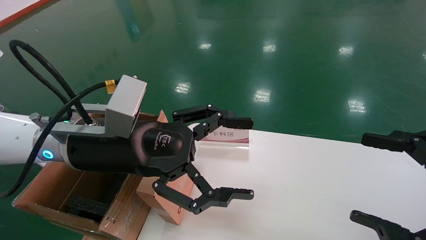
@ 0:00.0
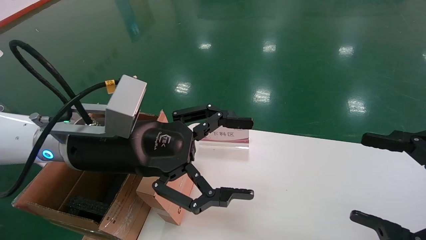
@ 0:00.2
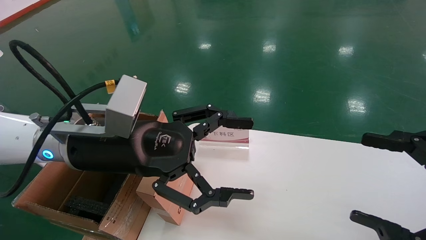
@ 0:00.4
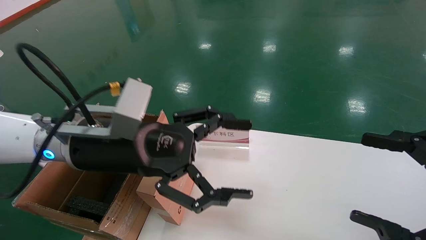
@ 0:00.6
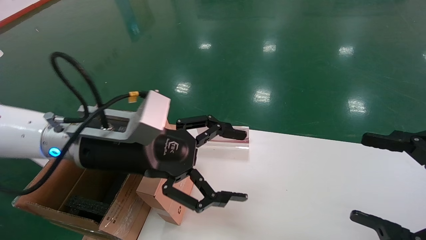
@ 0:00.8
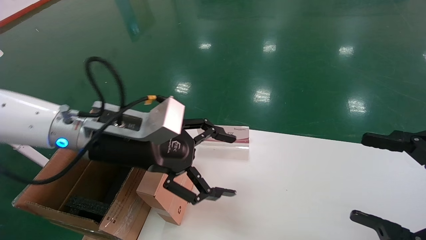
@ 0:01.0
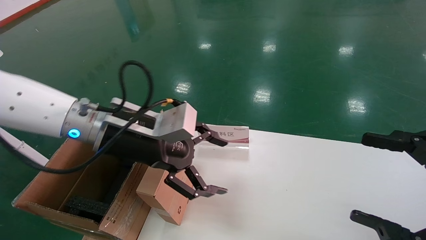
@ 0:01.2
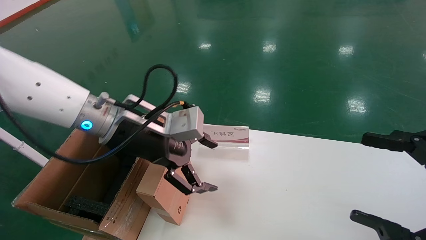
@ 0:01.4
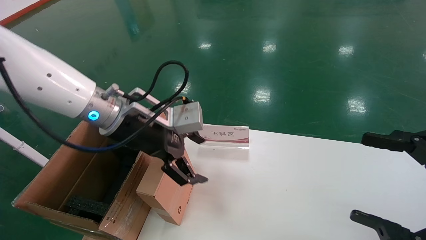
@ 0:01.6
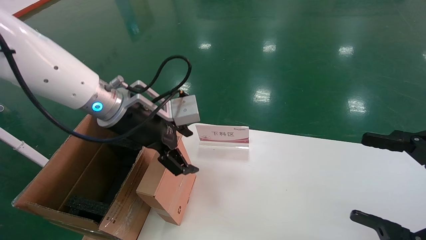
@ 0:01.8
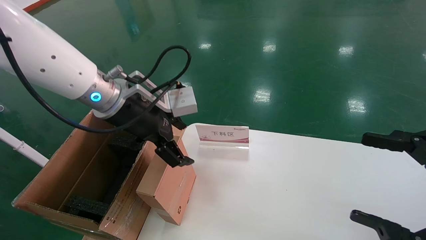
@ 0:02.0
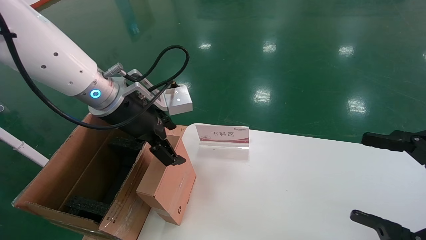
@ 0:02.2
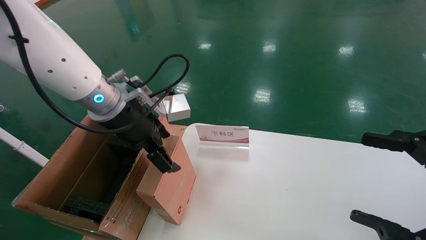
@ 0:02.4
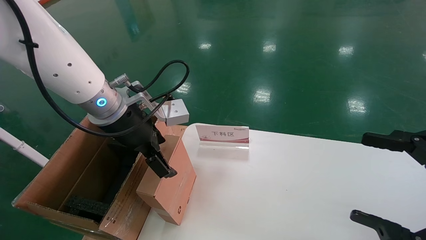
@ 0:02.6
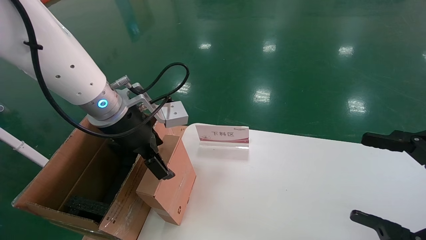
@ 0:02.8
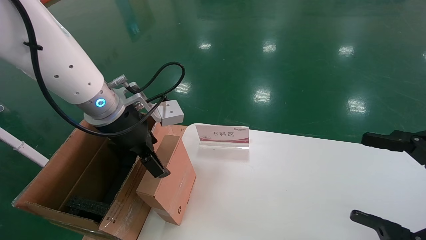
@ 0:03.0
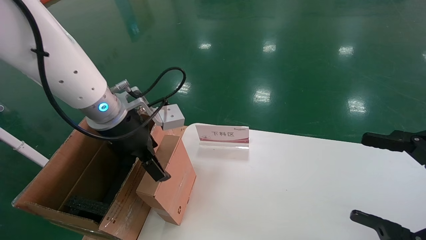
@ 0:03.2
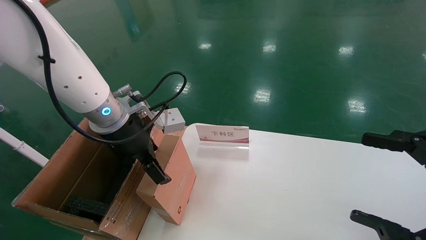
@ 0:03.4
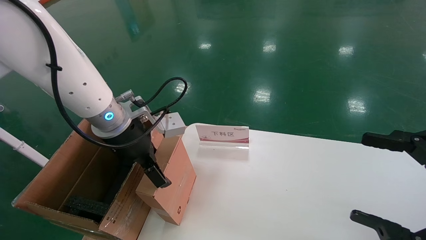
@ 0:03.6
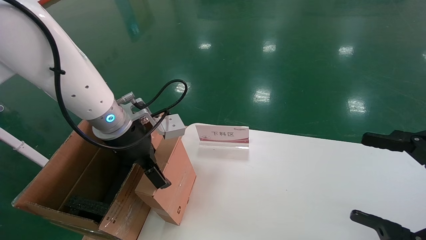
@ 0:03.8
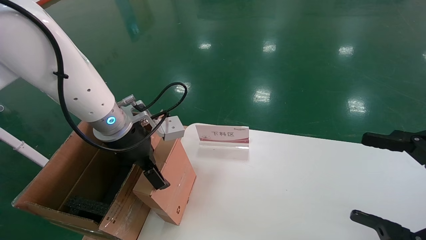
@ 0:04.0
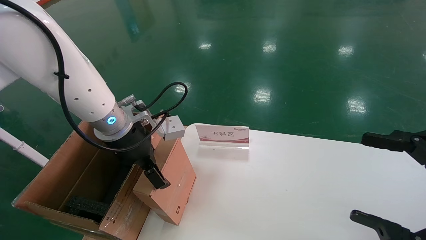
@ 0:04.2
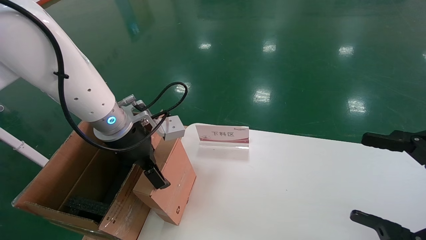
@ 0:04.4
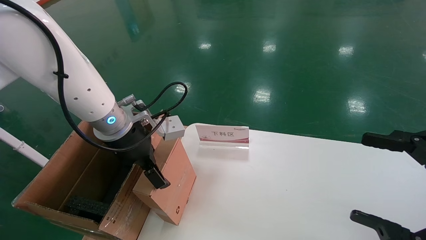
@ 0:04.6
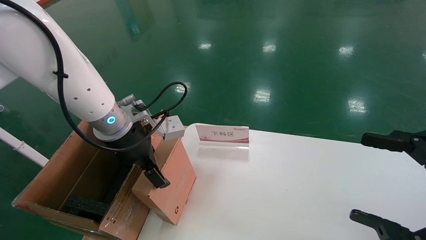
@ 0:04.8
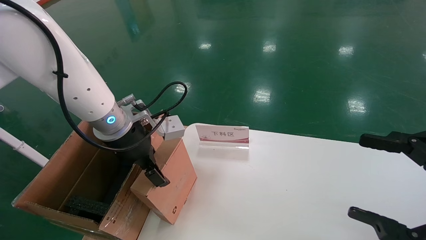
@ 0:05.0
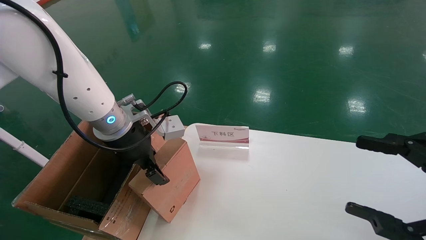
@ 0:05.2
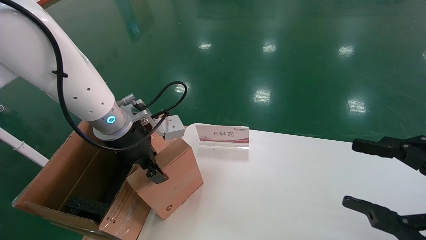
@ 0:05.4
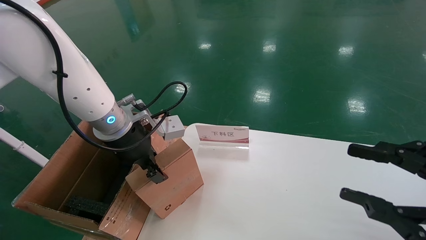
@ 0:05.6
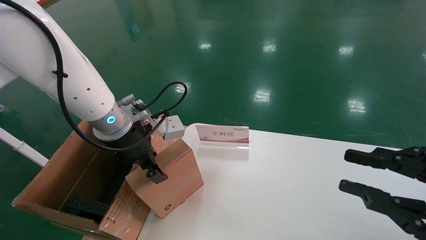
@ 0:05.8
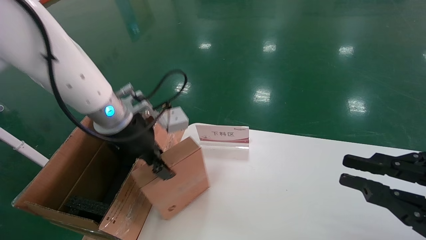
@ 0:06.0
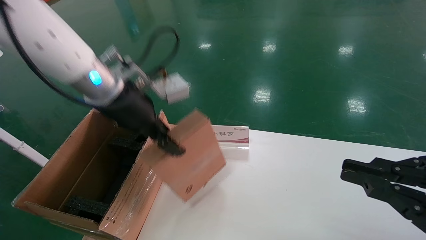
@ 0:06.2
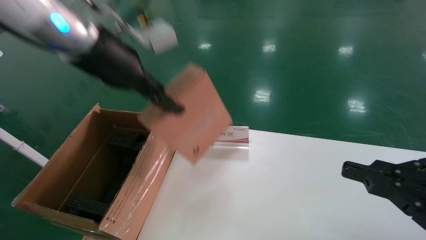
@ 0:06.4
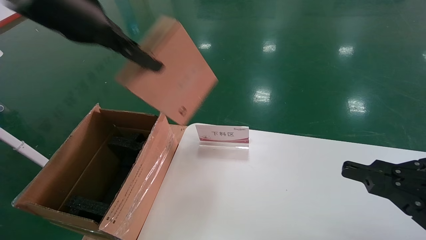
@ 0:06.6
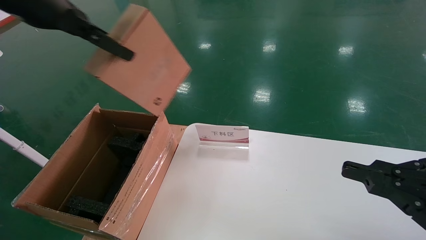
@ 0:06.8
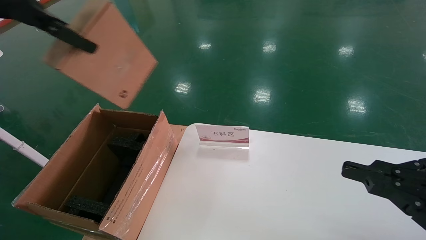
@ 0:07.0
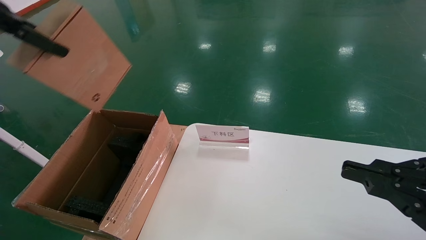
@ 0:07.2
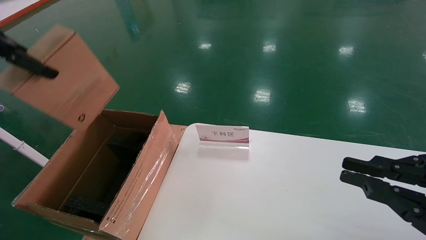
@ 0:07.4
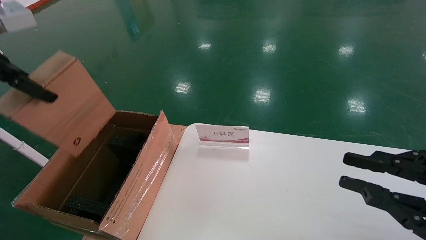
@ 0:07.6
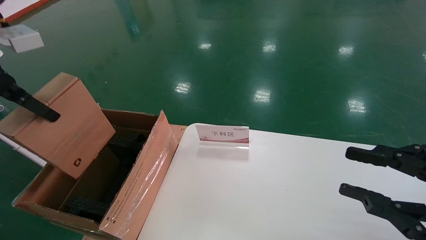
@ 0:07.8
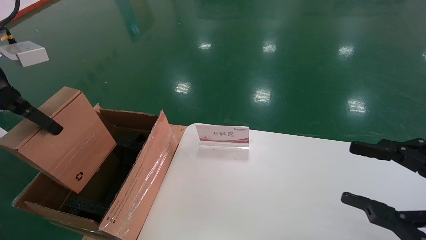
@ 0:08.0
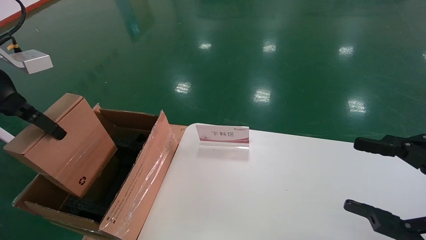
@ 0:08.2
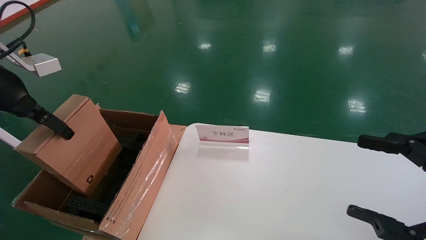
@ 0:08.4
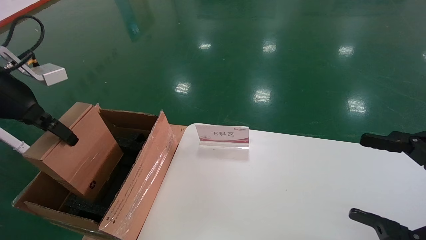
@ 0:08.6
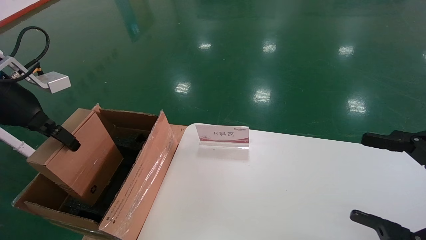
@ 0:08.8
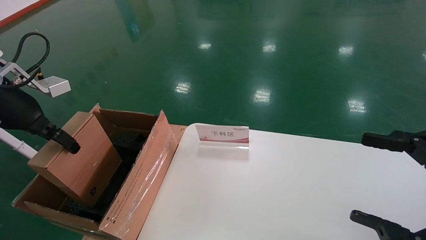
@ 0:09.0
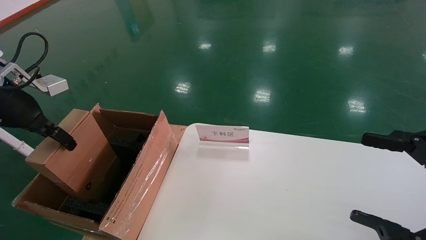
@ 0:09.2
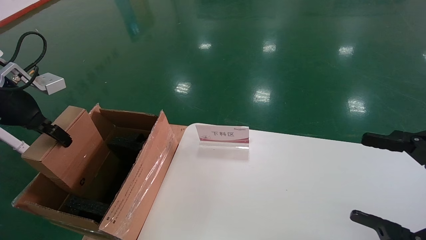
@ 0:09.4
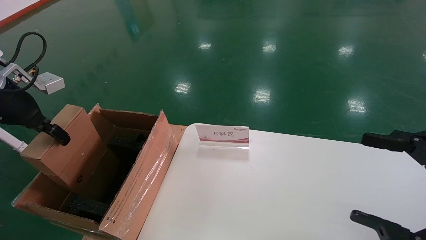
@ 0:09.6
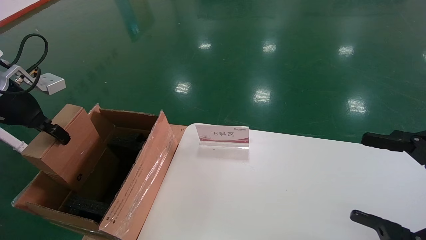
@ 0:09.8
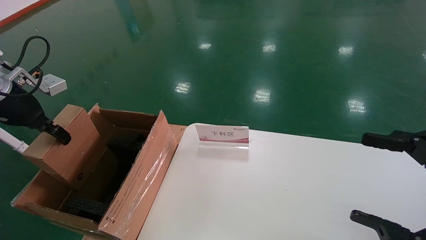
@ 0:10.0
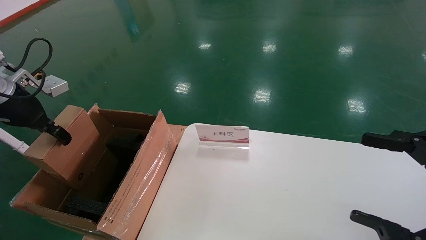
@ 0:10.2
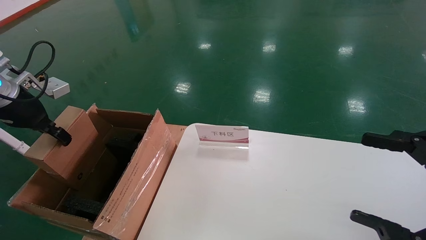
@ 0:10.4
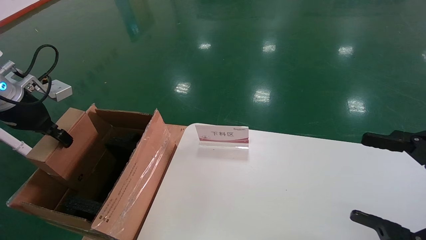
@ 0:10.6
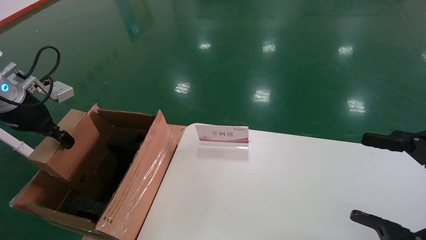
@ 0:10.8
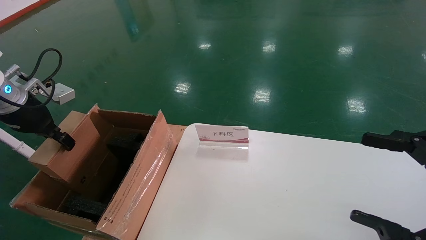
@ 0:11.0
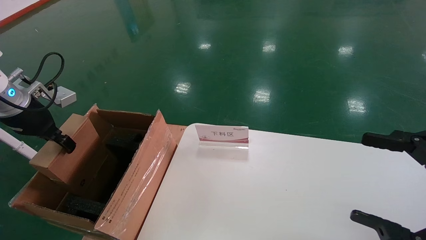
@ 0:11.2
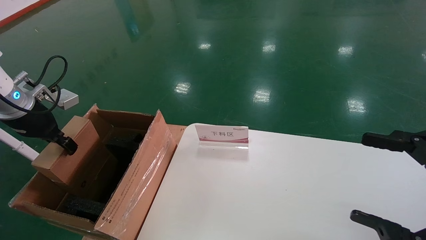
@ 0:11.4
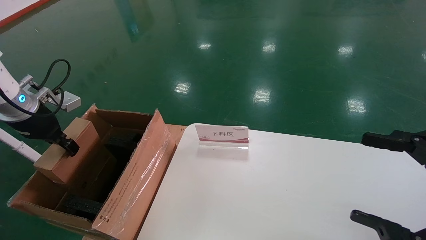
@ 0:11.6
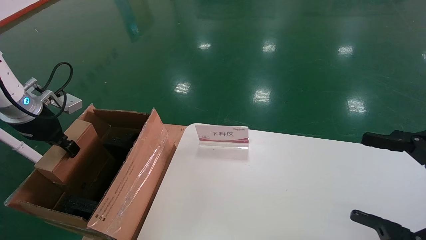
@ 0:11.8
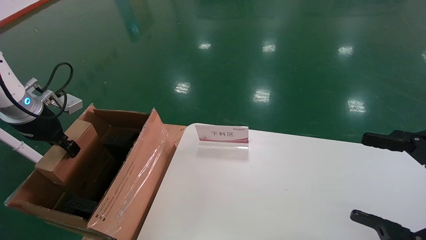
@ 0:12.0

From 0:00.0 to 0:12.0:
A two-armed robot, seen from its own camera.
Task of the whole recording: pick up the small cardboard box and load it into the large cardboard box.
Step, from 0:00.8 to 0:05.6: Pick up the mouse and power cord box.
From 0:00.0 to 0:01.6: The left gripper heads forward, covering some 5 cm.
From 0:03.0 to 0:04.4: The grippers stay close to where they were, moving slightly.
From 0:04.4 to 0:06.0: The right gripper closes its fingers; the left gripper closes up.
From 0:06.0 to 0:07.6: The left gripper shifts approximately 25 cm to the left, upward and backward.
From 0:07.6 to 0:09.0: The left gripper goes roughly 10 cm downward and forward, while the right gripper opens.
From 0:09.0 to 0:10.4: The grippers stay close to where they were, moving slightly.
From 0:10.4 to 0:12.0: The left gripper shifts by about 5 cm.

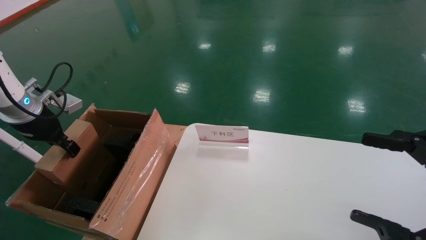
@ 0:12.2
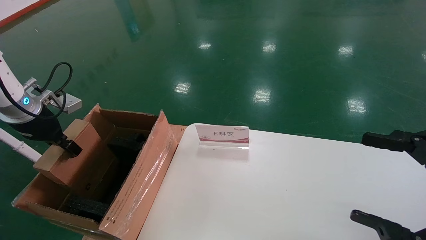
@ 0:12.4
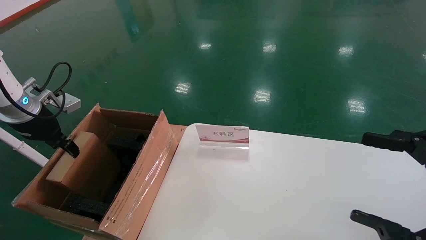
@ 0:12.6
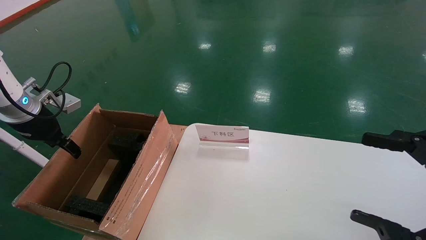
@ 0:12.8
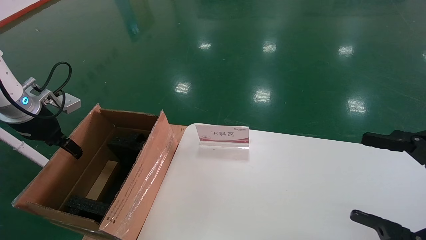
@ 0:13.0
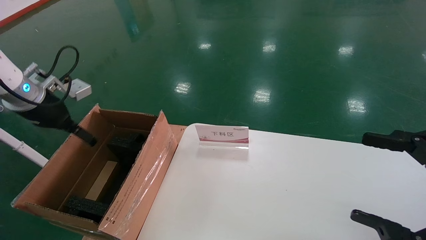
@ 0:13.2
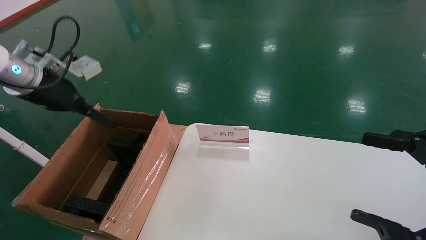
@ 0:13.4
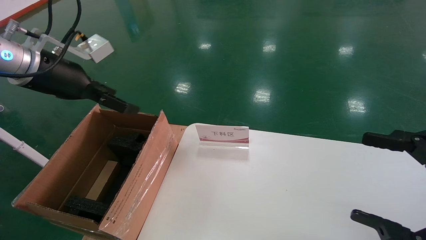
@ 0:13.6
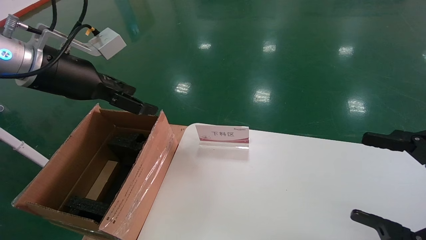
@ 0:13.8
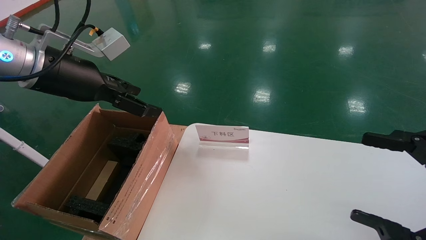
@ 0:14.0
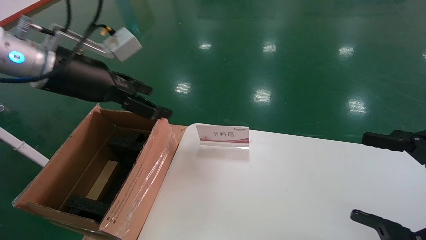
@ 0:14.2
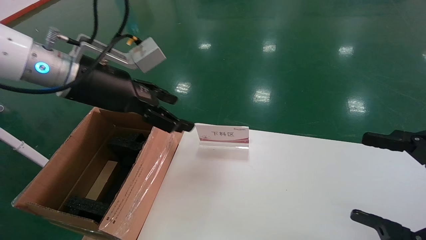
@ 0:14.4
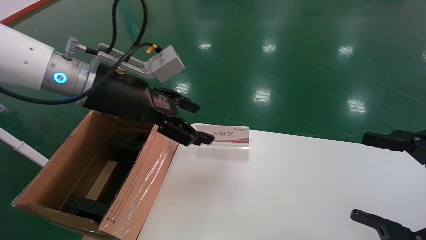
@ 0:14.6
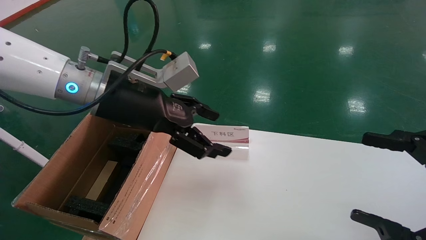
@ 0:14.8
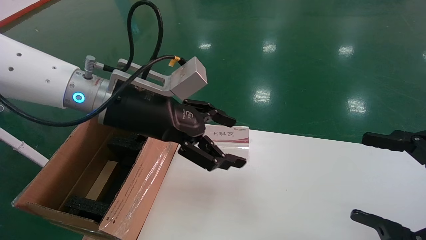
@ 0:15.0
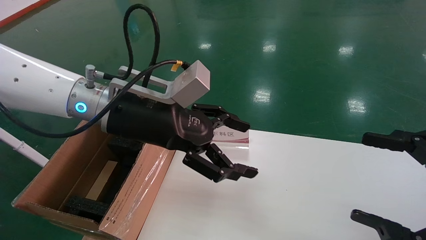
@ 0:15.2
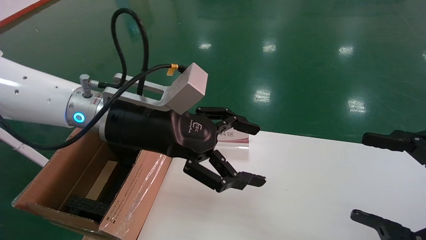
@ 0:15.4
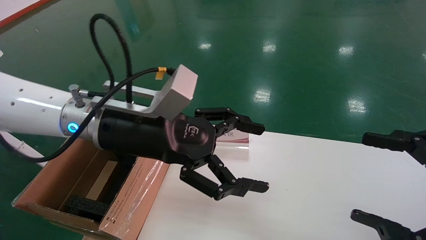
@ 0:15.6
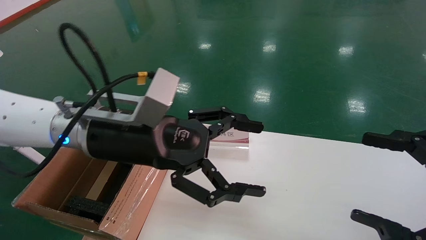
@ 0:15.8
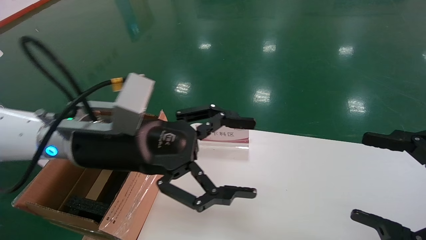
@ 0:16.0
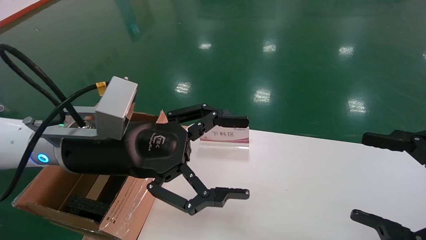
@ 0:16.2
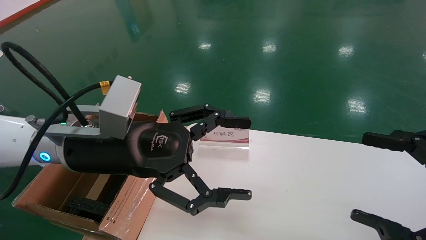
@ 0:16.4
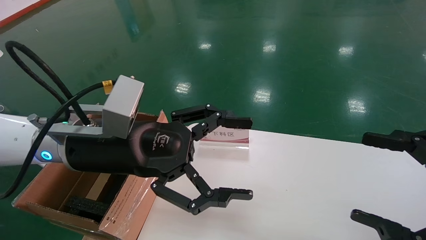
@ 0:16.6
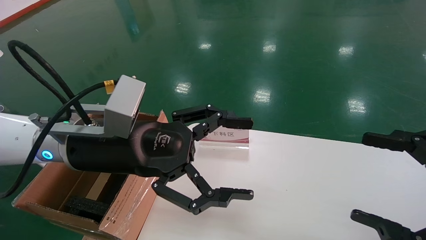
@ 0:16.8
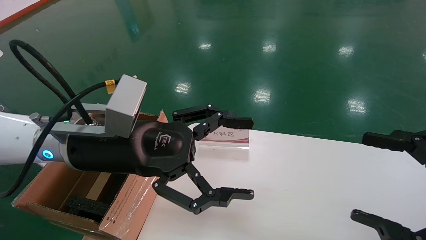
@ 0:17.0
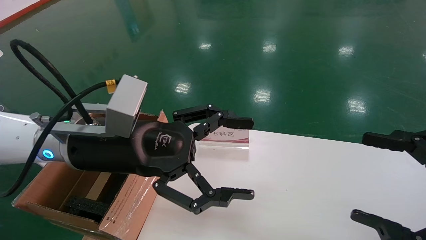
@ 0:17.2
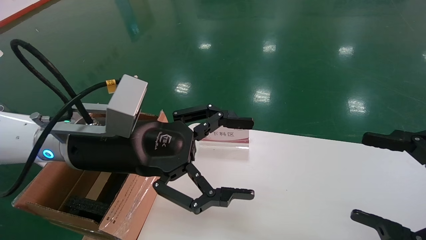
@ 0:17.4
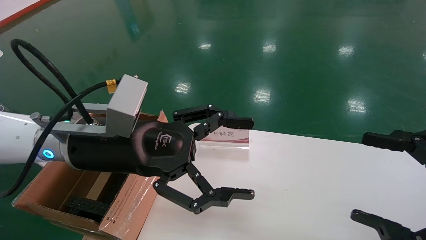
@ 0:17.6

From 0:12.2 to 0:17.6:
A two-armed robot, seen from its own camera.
Task of the whole recording: pick up the small cardboard box and load it into the large cardboard box.
From 0:12.2 to 0:13.6: The left gripper moves to the right and upward, approximately 15 cm, and opens its fingers.
From 0:13.6 to 0:15.0: The left gripper travels to the right by about 15 cm.
From 0:15.0 to 0:16.2: The left gripper travels downward by approximately 5 cm.
From 0:16.2 to 0:17.6: Both grippers stay put.
